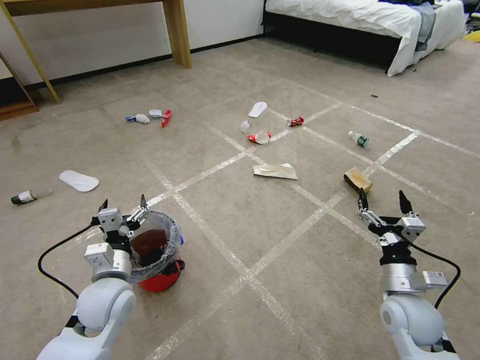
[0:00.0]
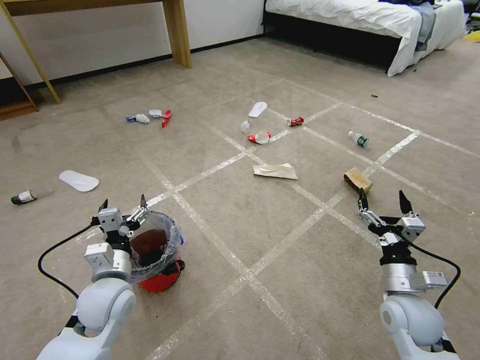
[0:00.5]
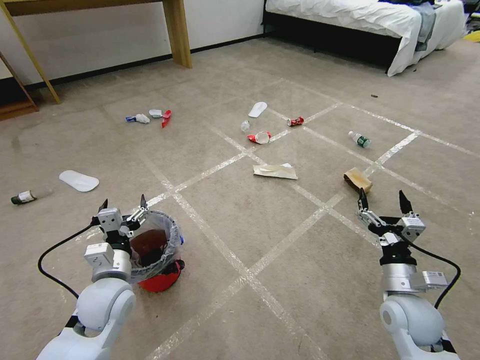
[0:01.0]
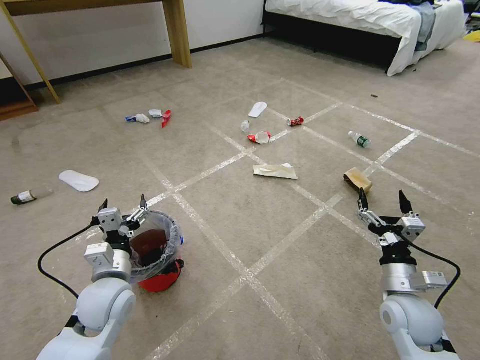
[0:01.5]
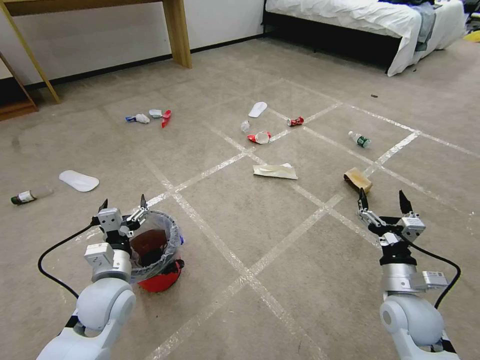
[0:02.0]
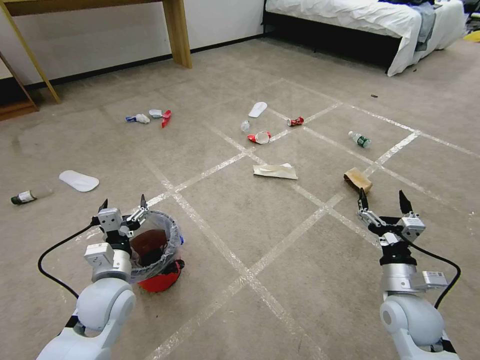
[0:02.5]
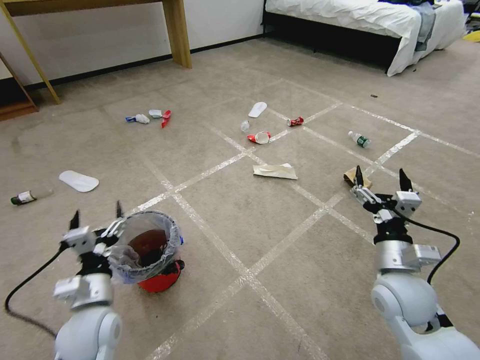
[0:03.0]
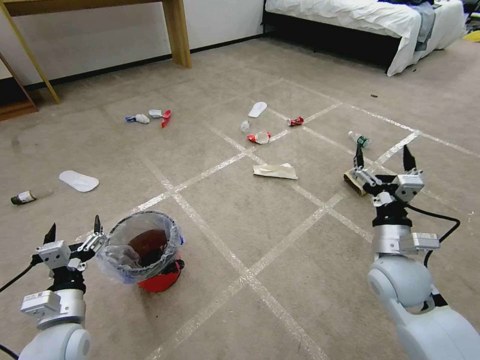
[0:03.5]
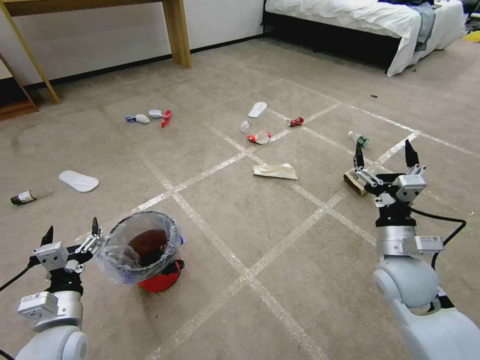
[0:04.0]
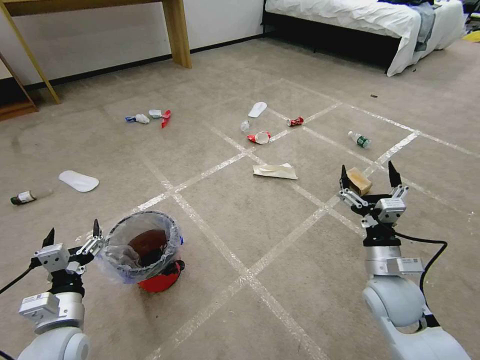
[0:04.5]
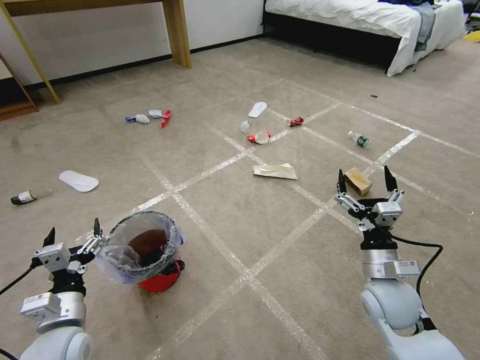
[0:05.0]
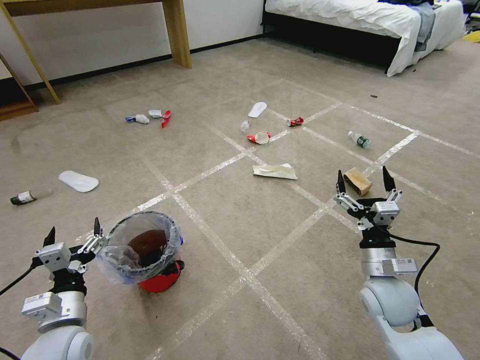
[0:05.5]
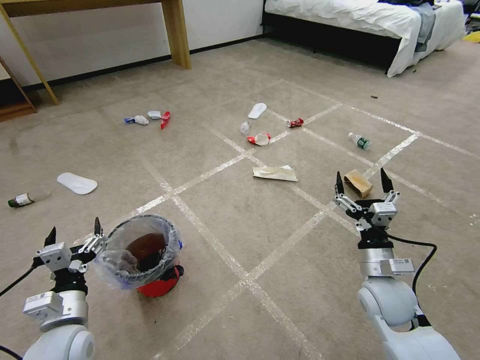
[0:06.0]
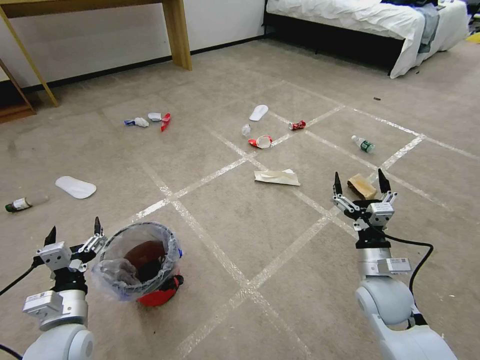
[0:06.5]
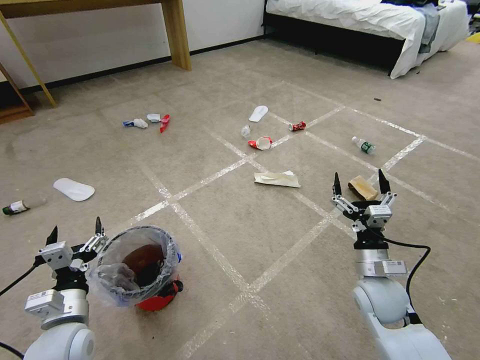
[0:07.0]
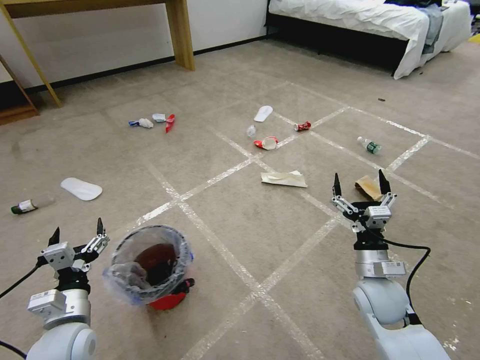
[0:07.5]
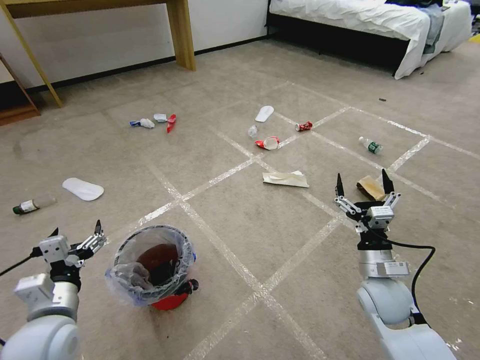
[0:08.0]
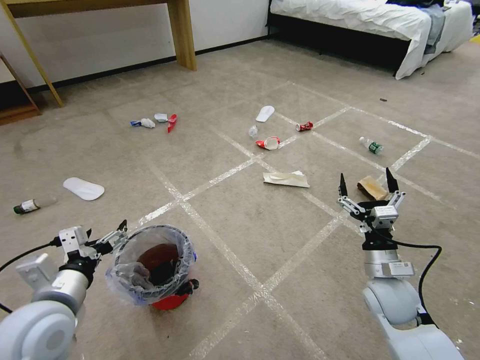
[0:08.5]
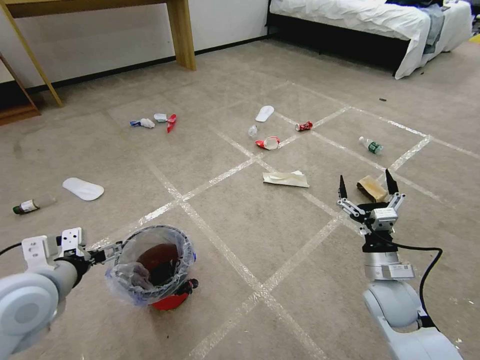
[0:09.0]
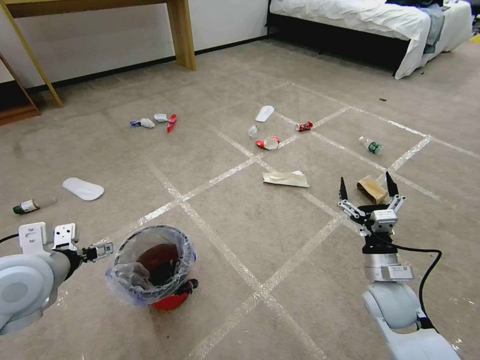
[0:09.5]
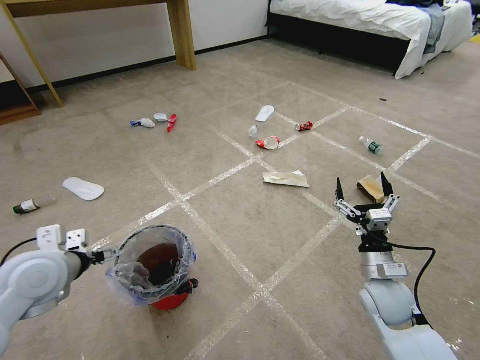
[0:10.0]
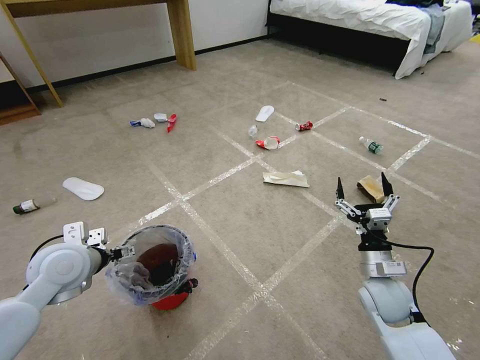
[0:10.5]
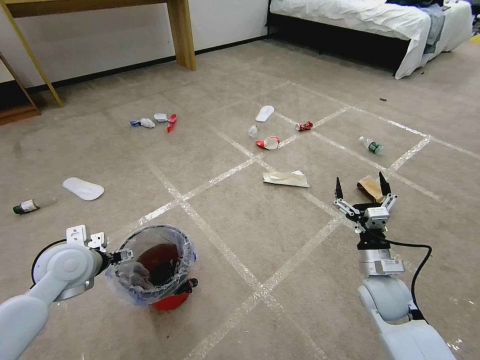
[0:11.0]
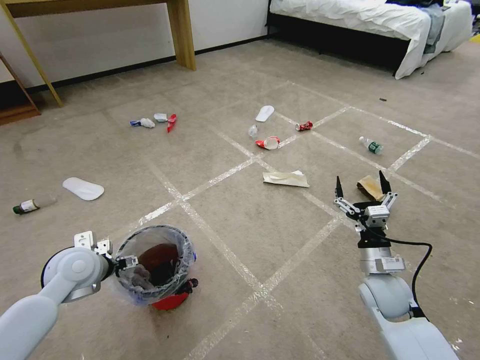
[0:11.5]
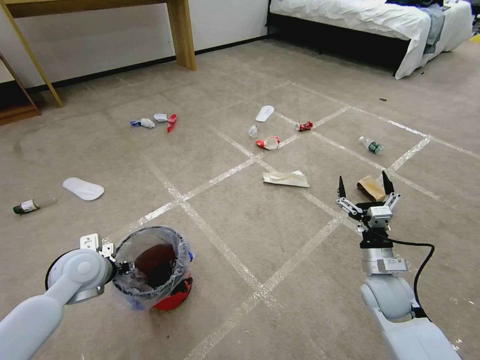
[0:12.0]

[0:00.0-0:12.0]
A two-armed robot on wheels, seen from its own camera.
Task of the whole recording: Pick up the trash bin and place the garbage on the floor into it.
0:02.0 to 0:04.0: The right gripper is displaced upward by roughly 10 cm. Meanwhile the left gripper shifts about 10 cm backward and to the left.
0:04.0 to 0:06.0: The right gripper shifts about 5 cm downward.
0:06.0 to 0:08.0: The grippers stay close to where they were, moving slightly.
0:08.0 to 0:10.0: The left gripper heads forward and upward, covering about 10 cm.
0:10.0 to 0:12.0: The left gripper heads downward, covering roughly 5 cm, and closes its fingers.

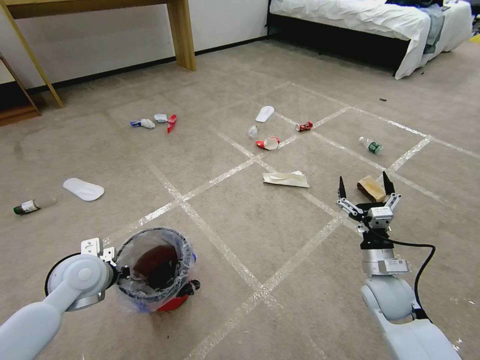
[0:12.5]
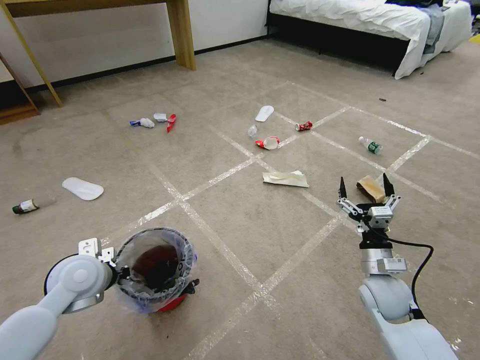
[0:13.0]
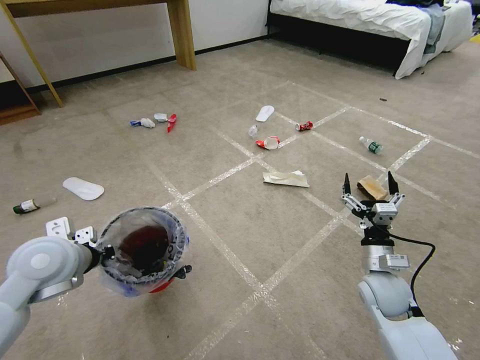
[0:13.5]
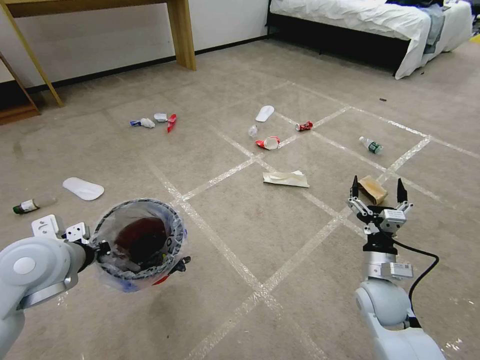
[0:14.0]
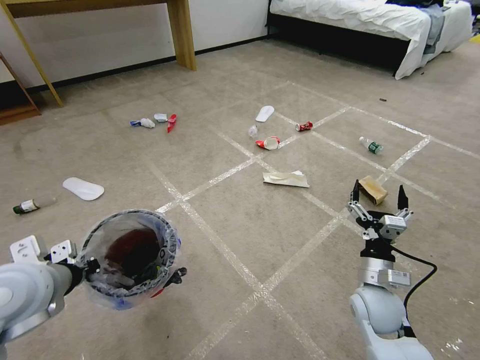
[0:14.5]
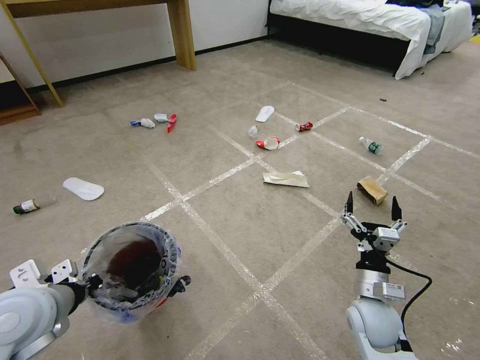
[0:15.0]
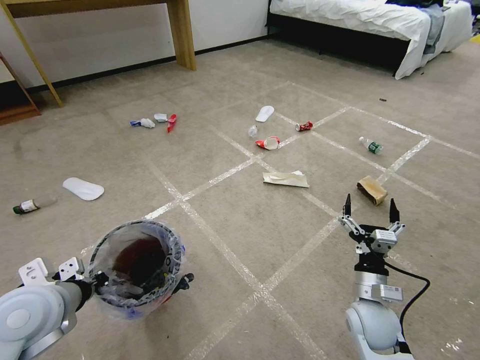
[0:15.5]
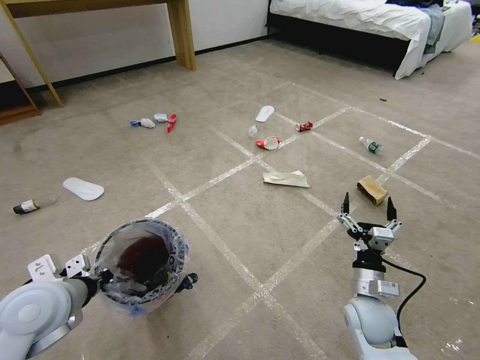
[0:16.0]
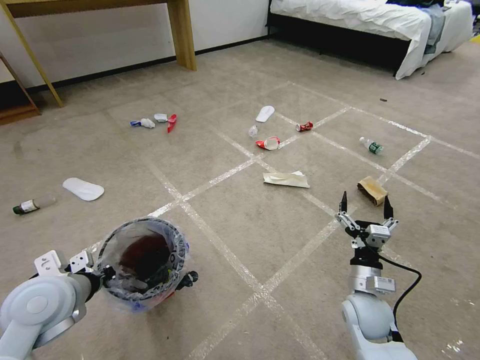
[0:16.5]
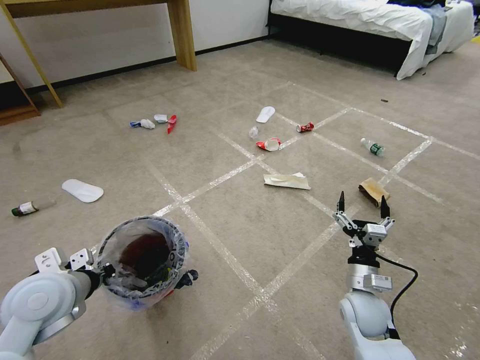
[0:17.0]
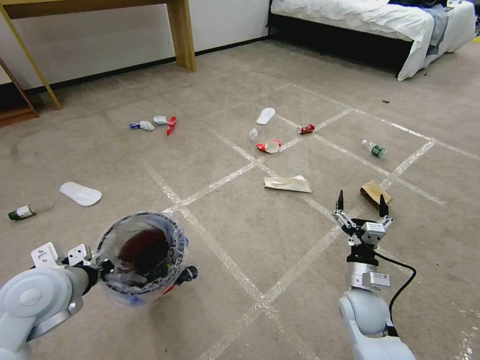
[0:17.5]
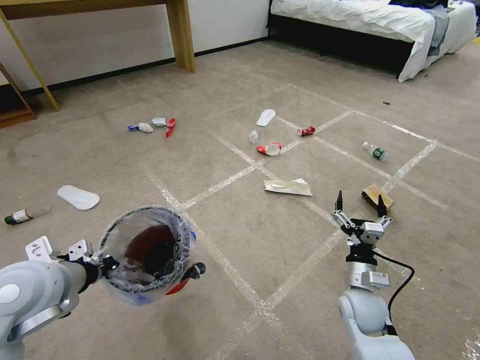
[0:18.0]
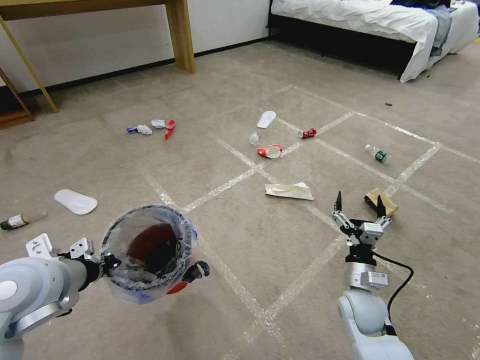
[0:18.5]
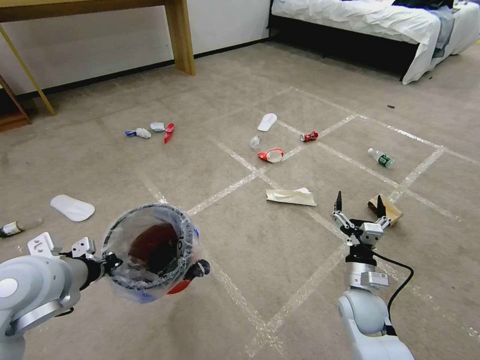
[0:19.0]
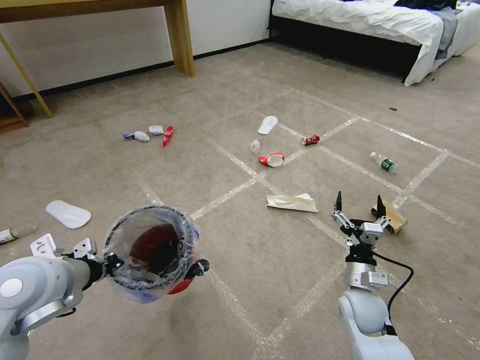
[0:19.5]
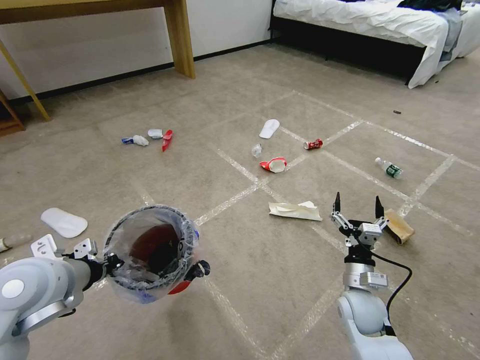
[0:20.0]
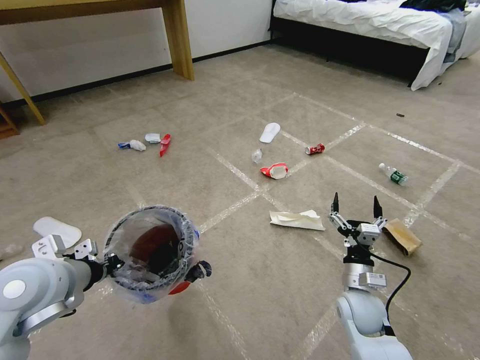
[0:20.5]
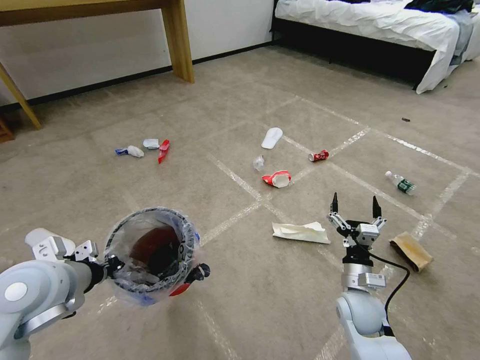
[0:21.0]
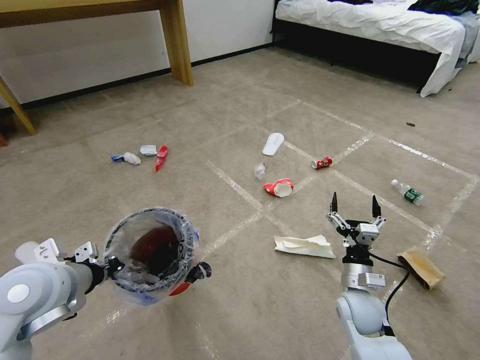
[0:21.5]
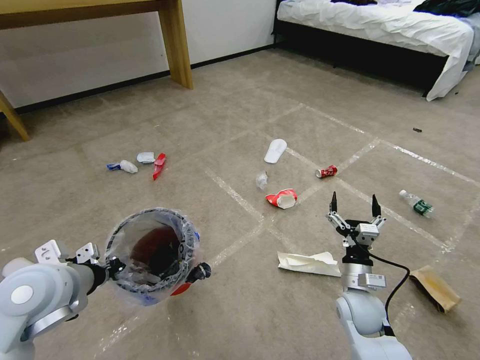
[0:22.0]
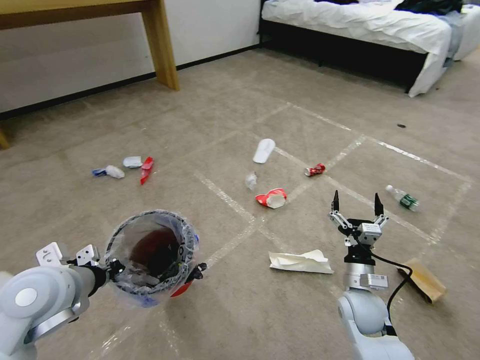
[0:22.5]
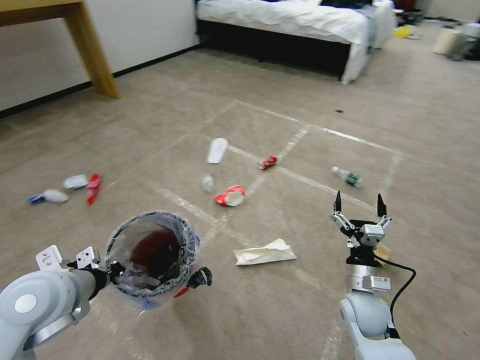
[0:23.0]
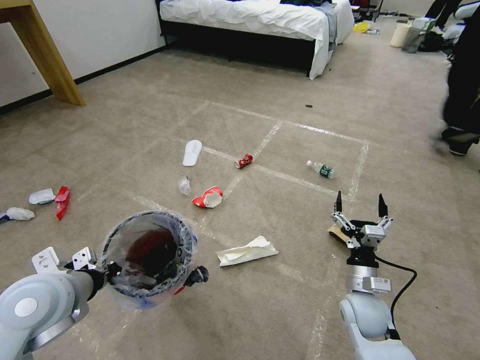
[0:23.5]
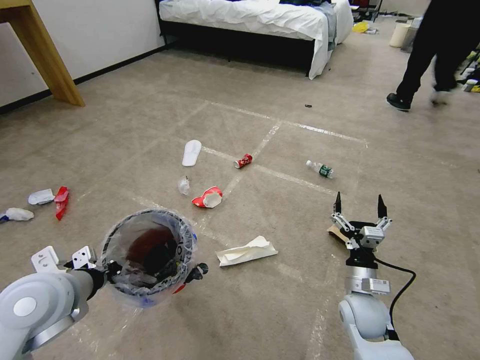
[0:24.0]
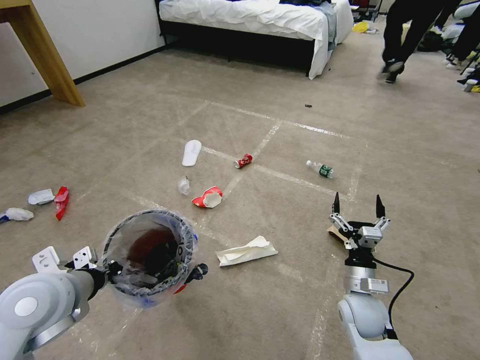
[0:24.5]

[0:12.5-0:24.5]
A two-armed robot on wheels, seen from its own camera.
Task of the whole recording: Pick up the trash bin and place the garbage on the floor into it.
0:12.5 to 0:14.5: The left gripper moves upward and backward, about 15 cm.
0:14.5 to 0:16.5: The left gripper goes about 5 cm downward.
0:16.5 to 0:18.5: The left gripper goes approximately 5 cm upward.

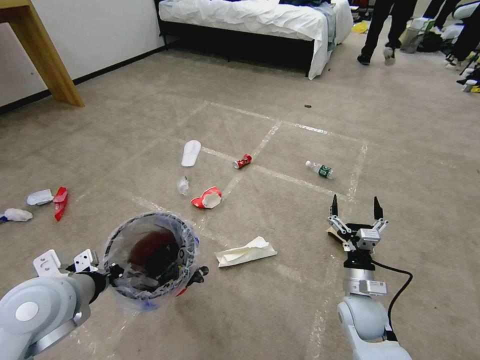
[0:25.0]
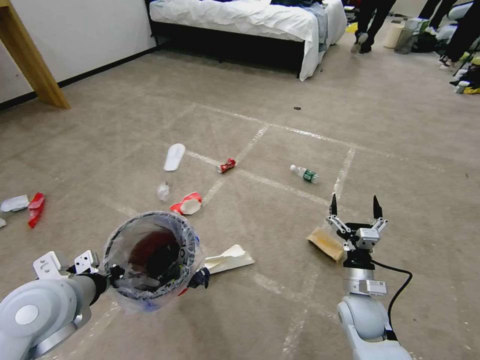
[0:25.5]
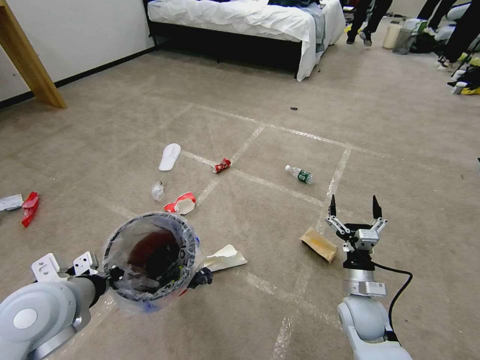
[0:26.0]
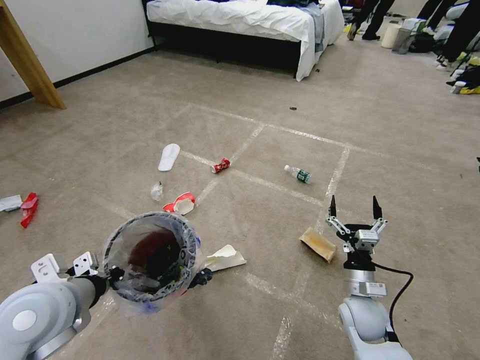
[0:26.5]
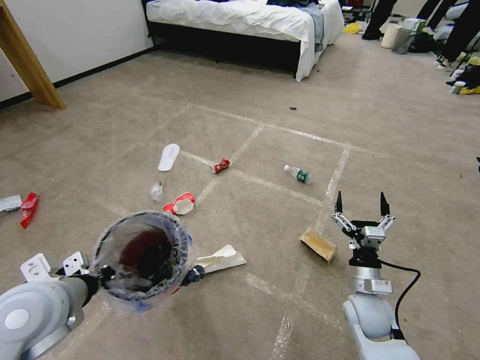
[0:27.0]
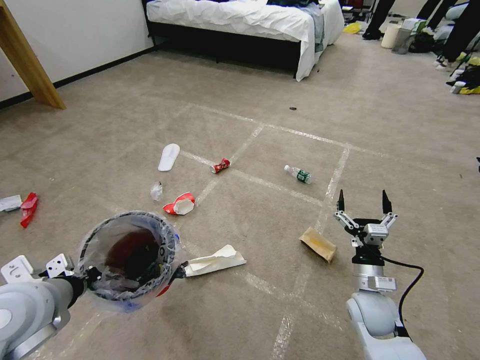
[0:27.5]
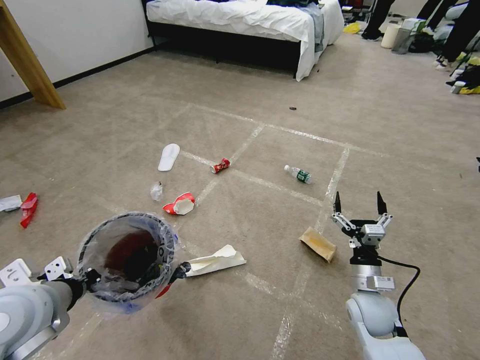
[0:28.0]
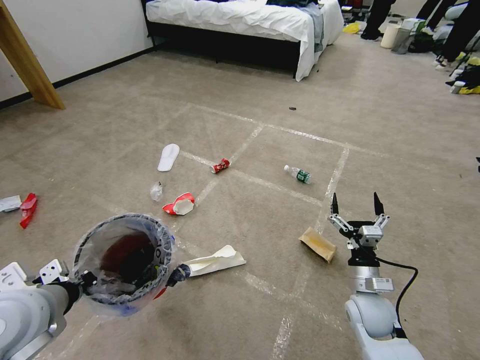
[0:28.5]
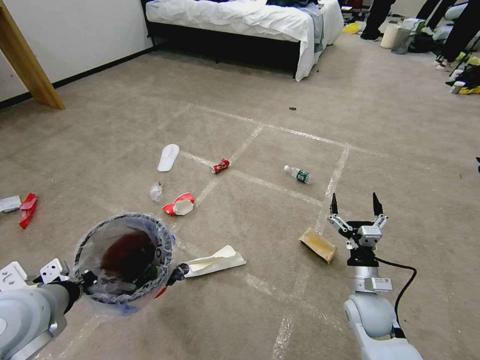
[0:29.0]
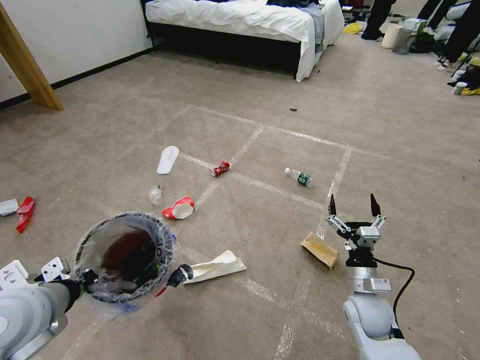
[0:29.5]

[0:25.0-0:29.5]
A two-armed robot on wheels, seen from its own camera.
Task of the whole recording: Pick up the trash bin and place the garbage on the floor into it.
0:27.0 to 0:29.5: The grippers make only small movements.
